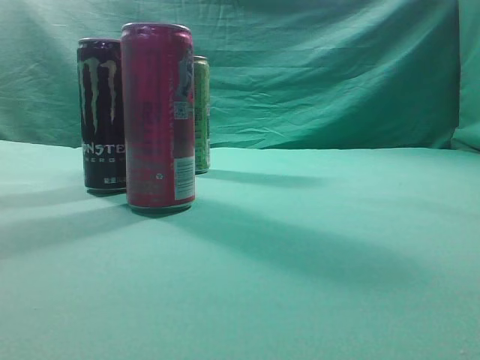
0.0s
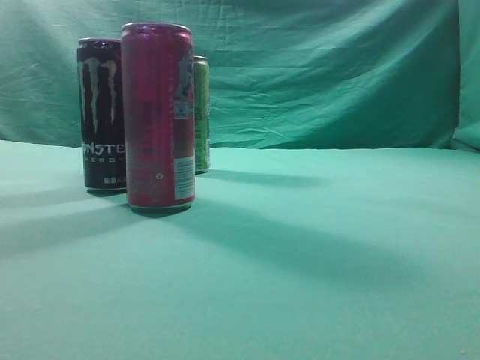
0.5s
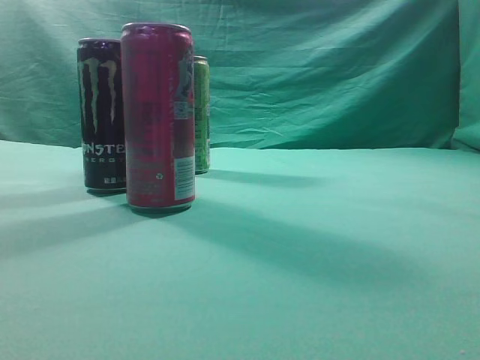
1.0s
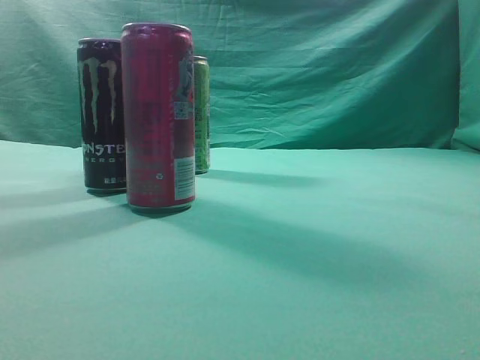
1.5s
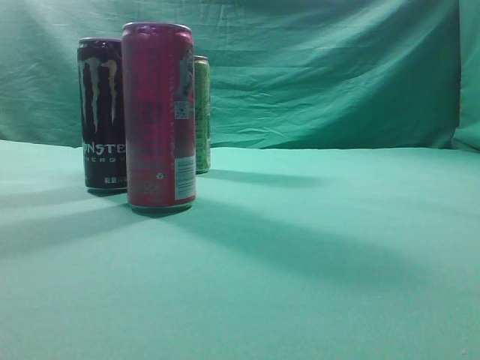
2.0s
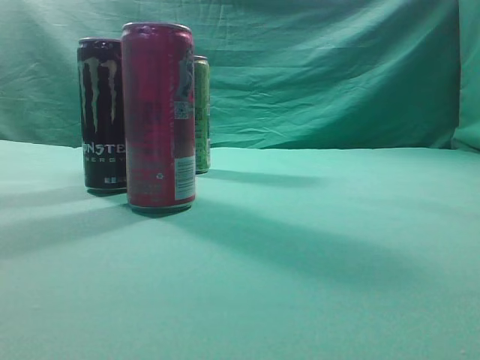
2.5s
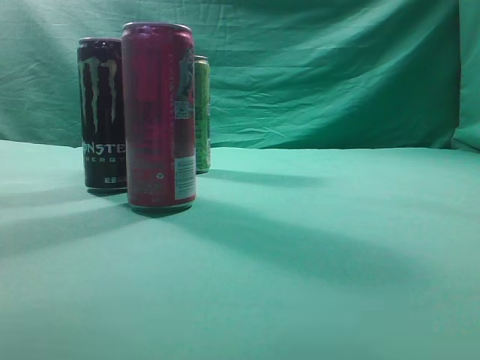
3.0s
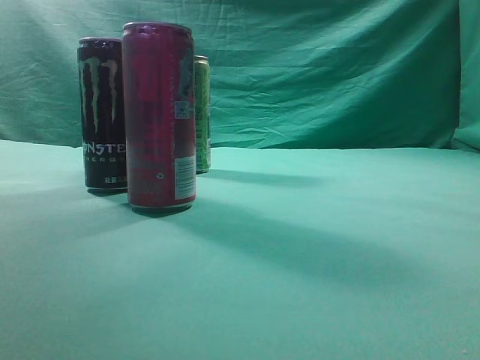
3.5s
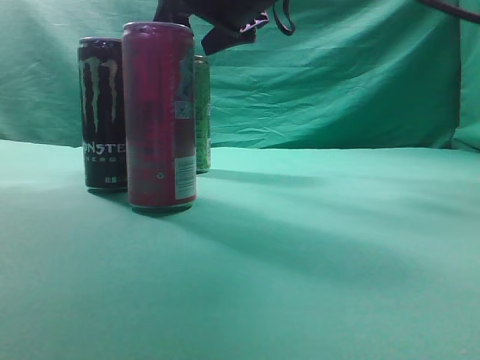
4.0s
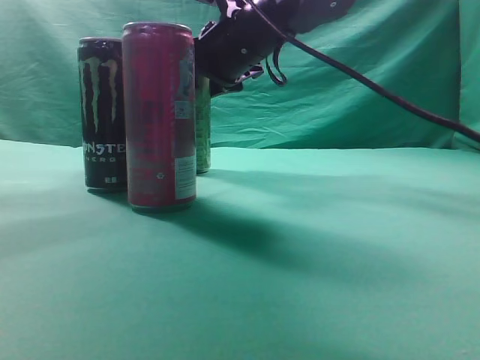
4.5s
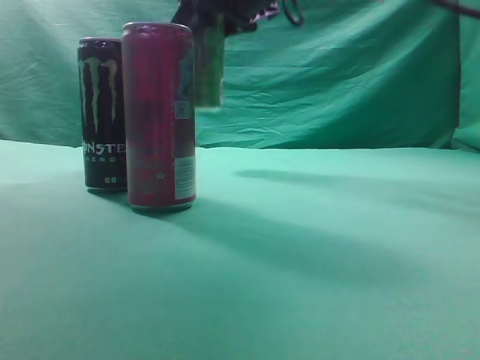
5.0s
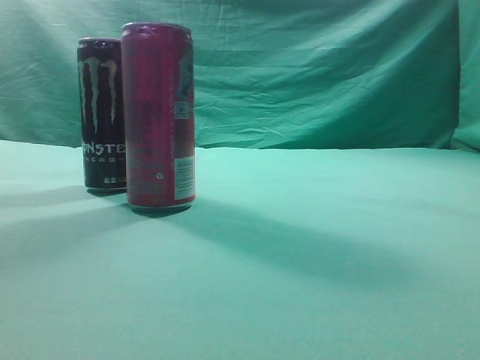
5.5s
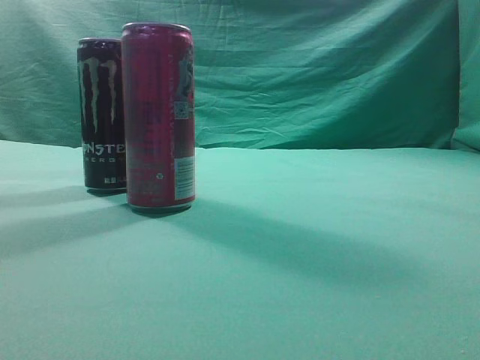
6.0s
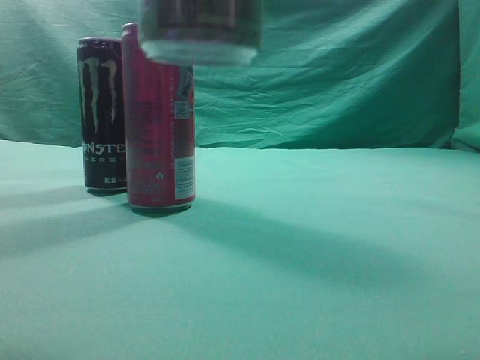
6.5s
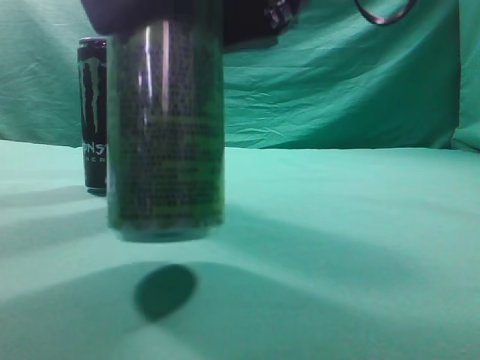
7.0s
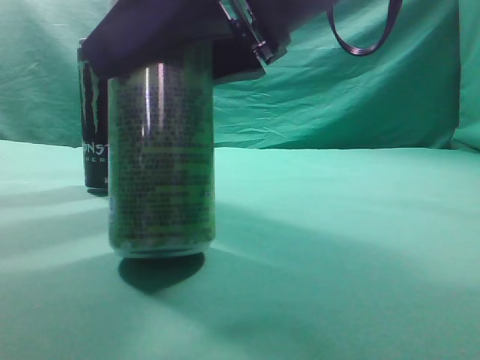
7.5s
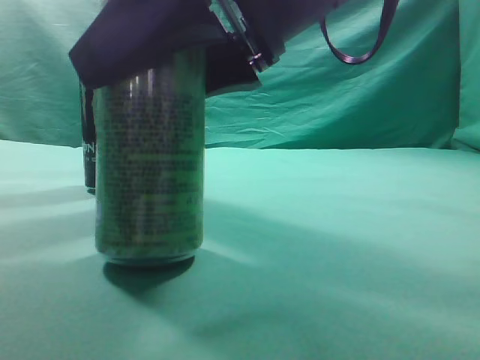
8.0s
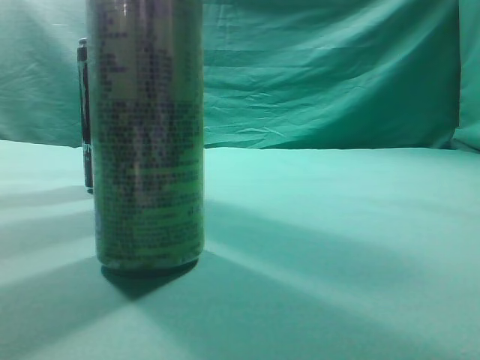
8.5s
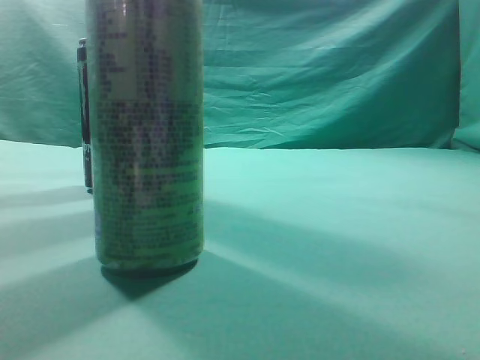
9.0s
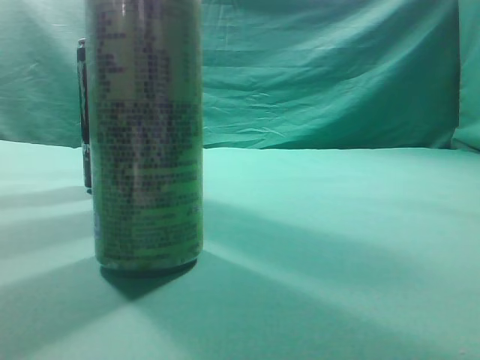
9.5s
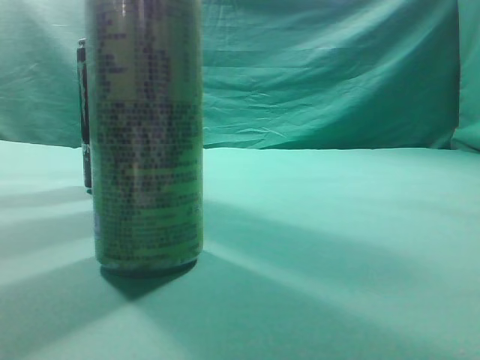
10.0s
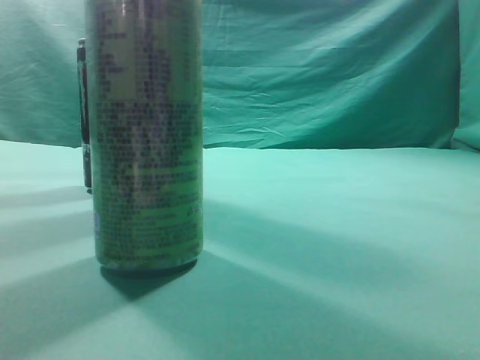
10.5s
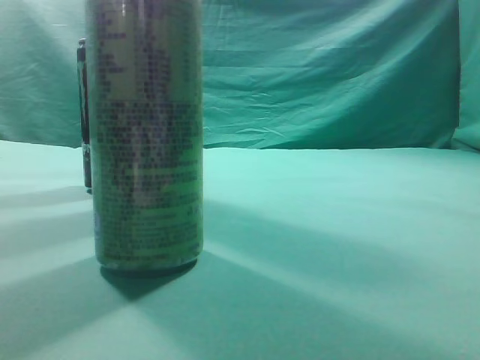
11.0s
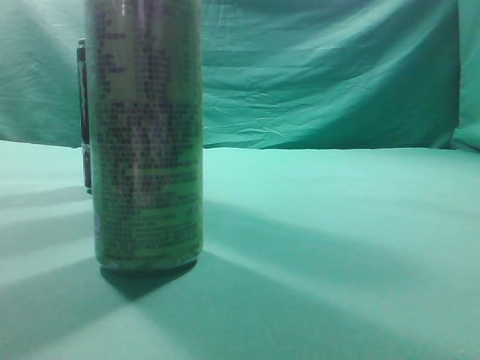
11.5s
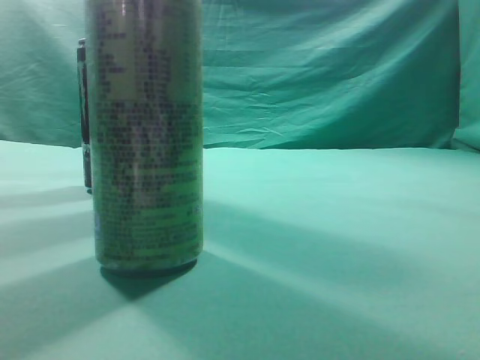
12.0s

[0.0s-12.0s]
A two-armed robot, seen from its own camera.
Task of the whole recording: move one drink among three beverages.
Step, 0.0s to 5.0s: Grasp the beverage bottle placed at the back of the desk.
Step, 5.5s to 8.5s: Place the beverage bottle to the front of the table.
2.0s to 4.0s: The right gripper heads forward and to the left, covering roughly 50 cm, and opens.
4.0s to 6.0s: The right gripper travels backward, upward and to the right by approximately 30 cm, and closes up.
6.0s to 8.0s: The right gripper goes roughly 20 cm downward and to the left.
8.0s to 10.0s: The right gripper travels to the right, upward and backward by about 30 cm, and closes its fingers.
